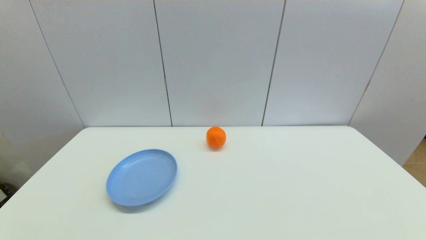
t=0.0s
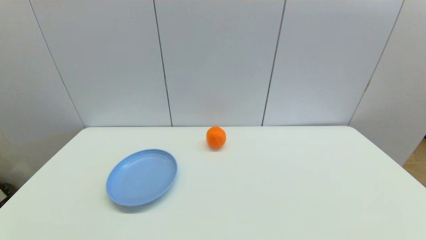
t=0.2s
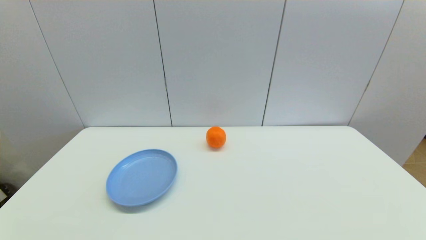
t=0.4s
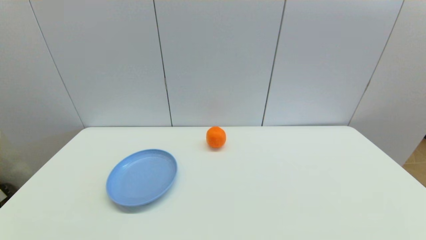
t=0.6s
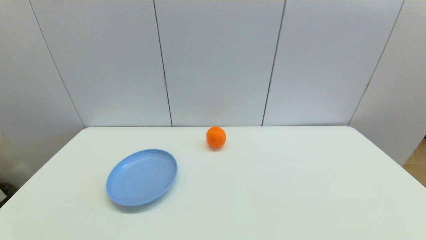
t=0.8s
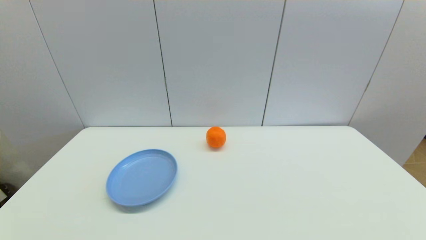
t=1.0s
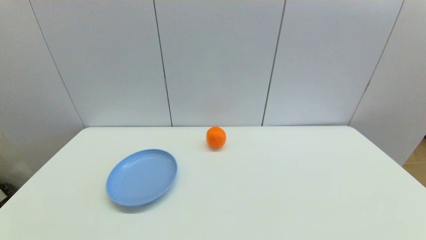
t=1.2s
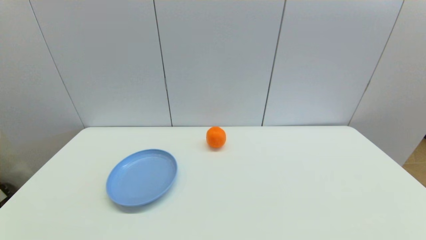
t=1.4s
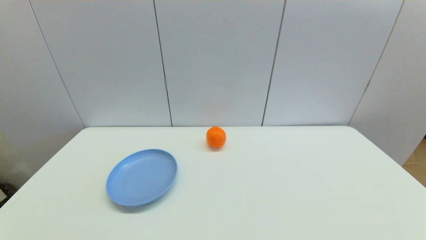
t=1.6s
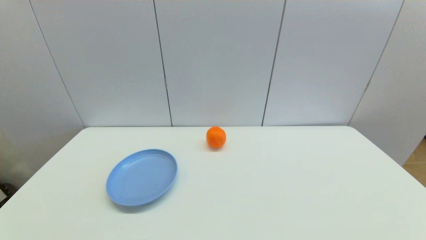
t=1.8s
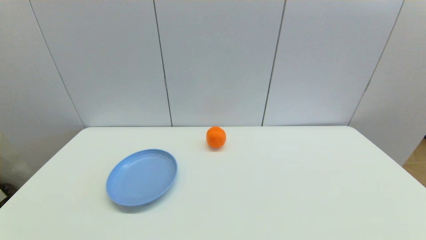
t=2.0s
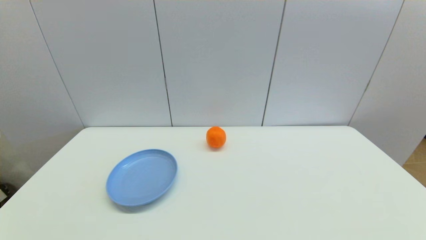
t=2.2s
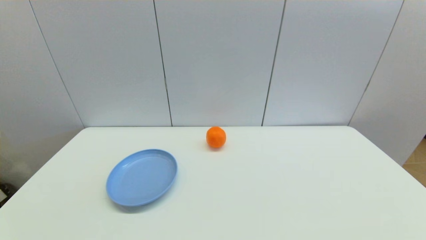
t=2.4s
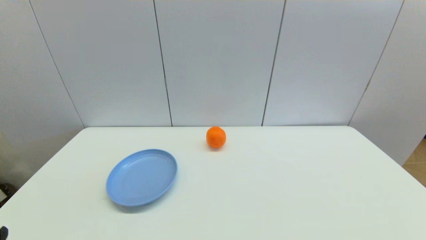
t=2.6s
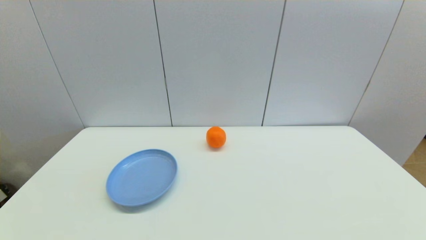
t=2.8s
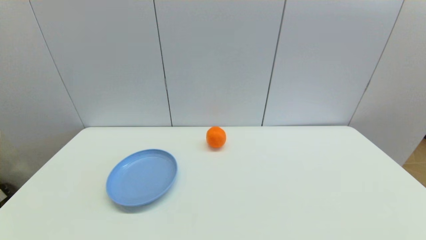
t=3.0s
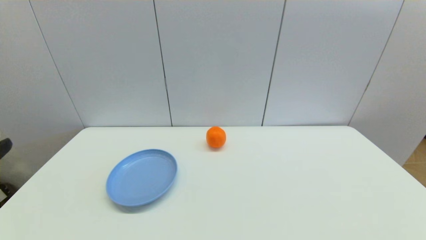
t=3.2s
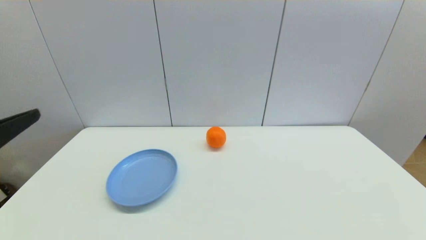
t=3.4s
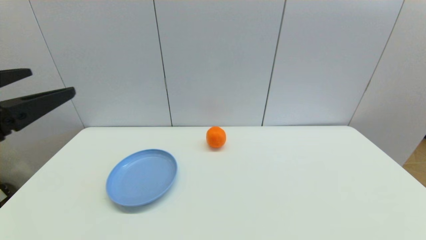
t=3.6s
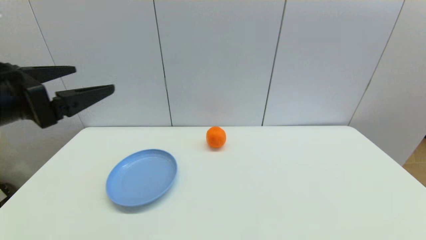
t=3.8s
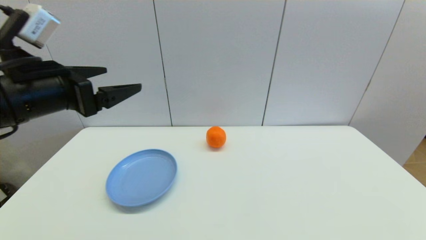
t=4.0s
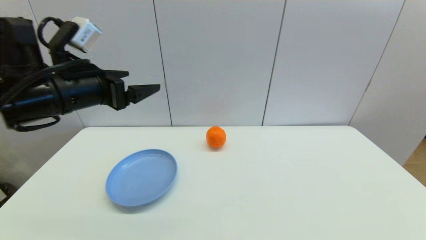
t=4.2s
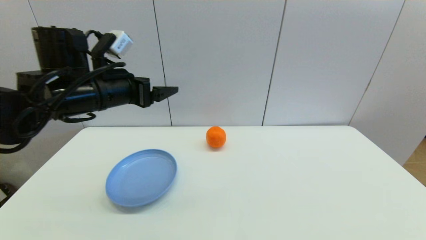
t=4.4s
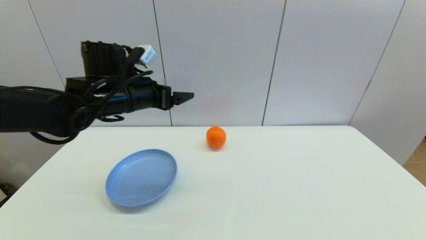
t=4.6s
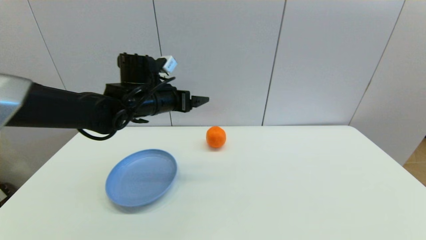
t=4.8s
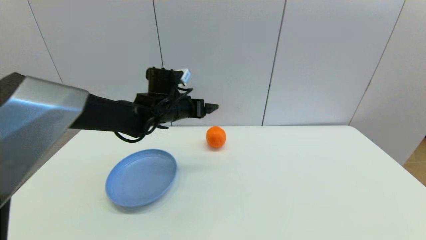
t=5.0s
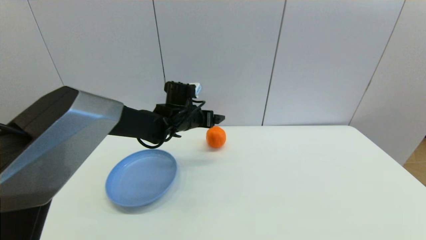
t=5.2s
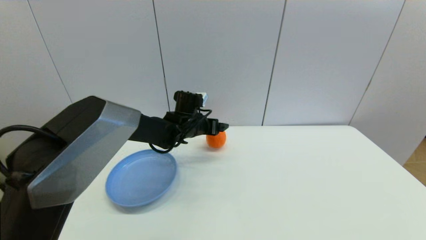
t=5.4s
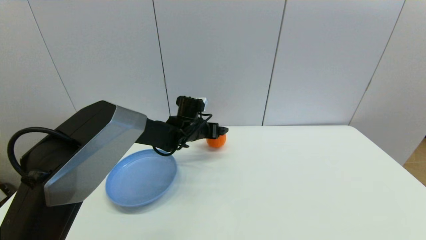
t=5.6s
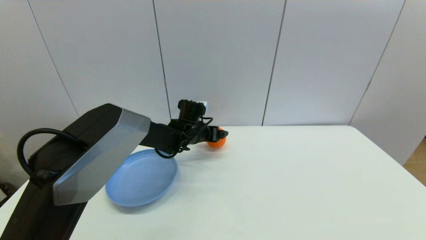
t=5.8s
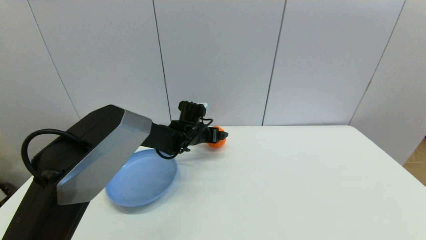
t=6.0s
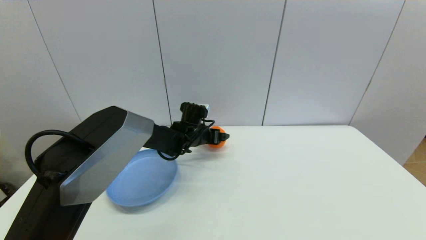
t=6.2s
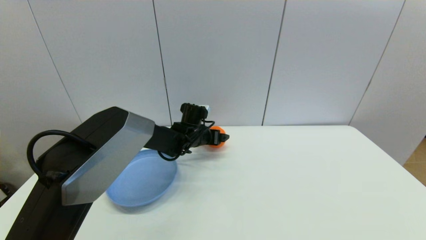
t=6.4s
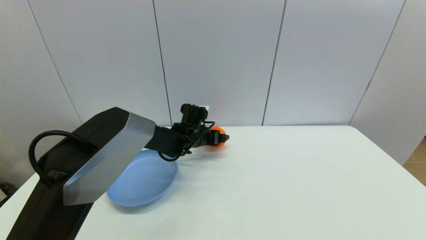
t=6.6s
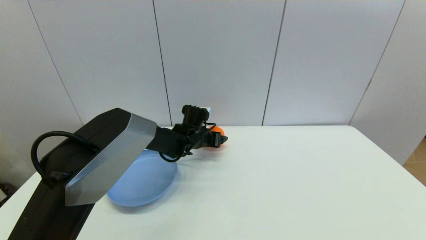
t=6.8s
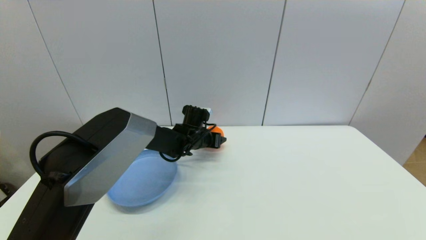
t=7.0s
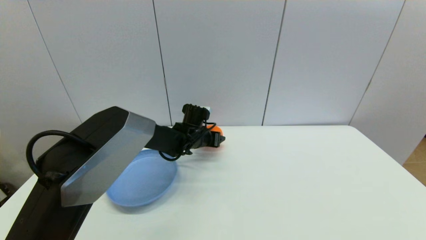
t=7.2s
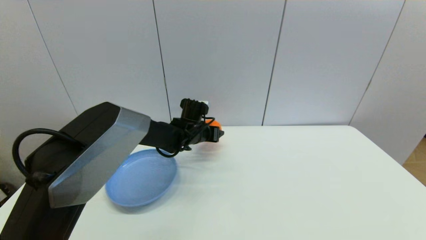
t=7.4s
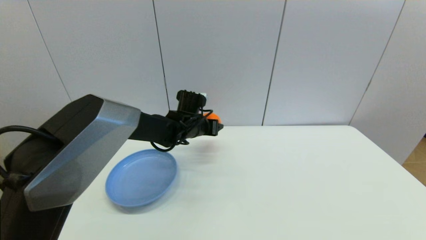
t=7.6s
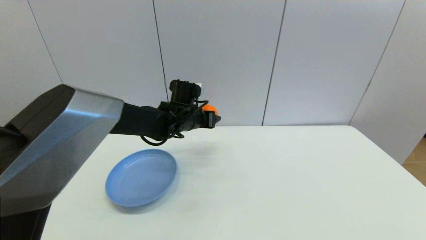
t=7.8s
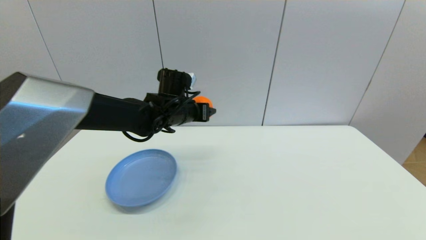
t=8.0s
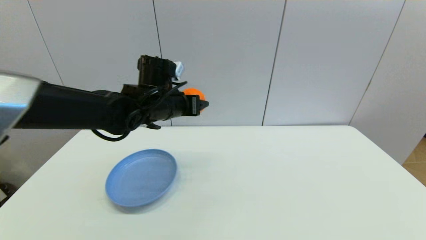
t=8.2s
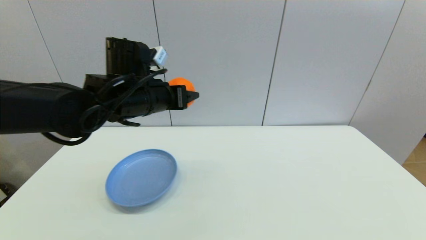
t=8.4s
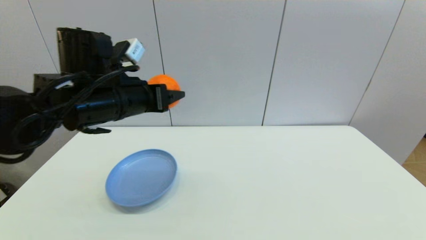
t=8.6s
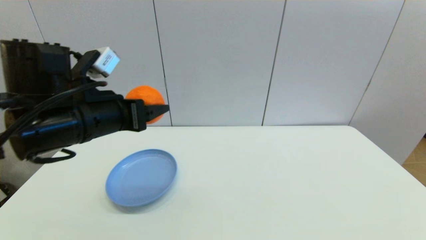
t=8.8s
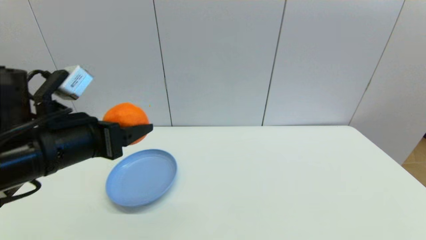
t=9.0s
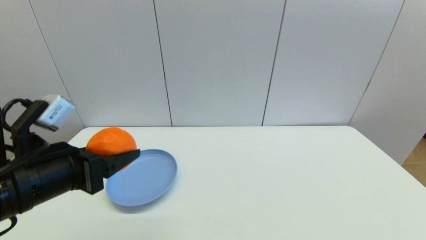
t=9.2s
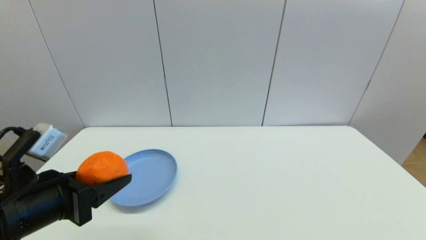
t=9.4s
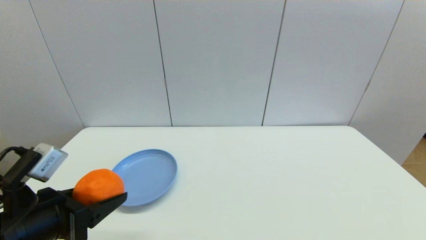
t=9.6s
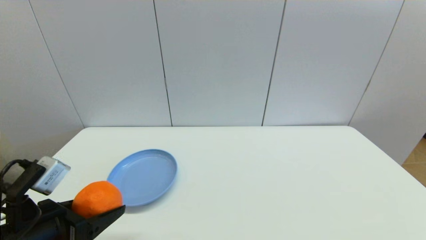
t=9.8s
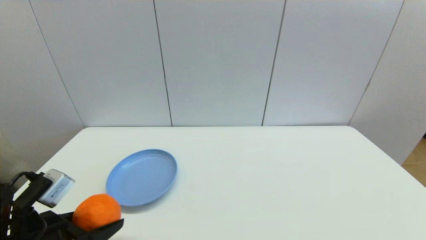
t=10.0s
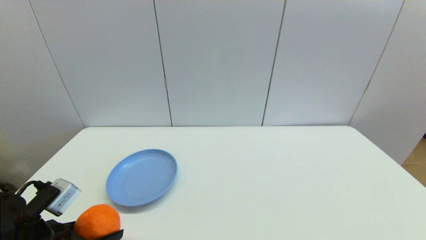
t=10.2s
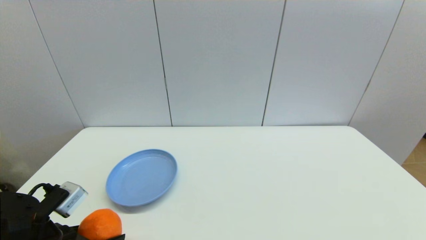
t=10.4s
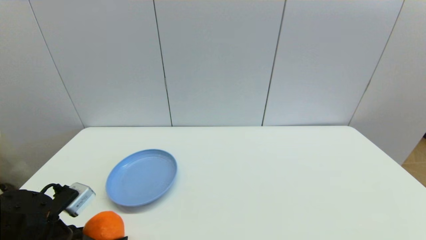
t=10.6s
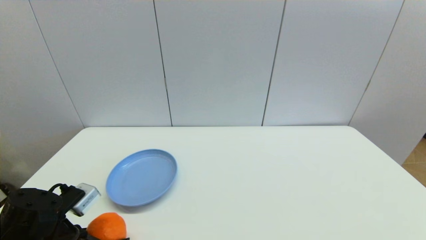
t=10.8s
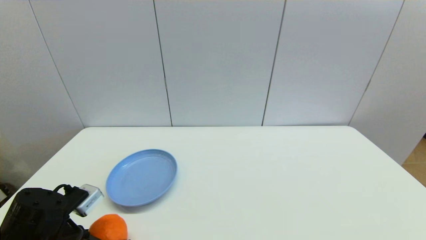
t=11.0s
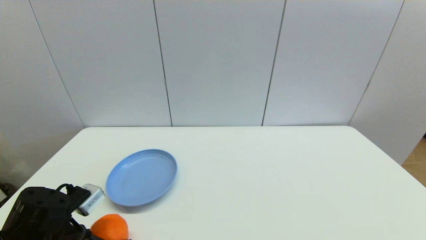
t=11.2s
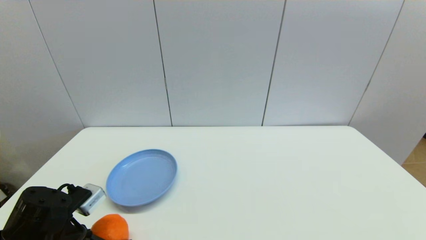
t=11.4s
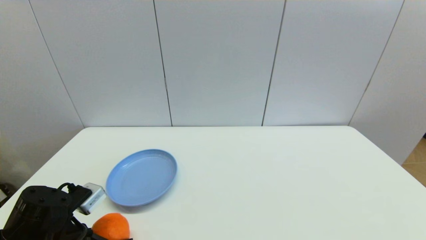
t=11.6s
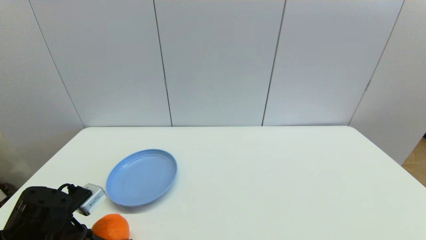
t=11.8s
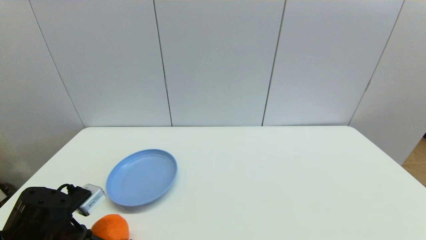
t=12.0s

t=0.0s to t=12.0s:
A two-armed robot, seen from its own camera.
Step, t=3.2s to t=7.0s: Grasp the orange with left gripper.
t=0.0s to t=1.6s: Both grippers stay put.
t=3.0s to t=4.4s: The left gripper heads forward, covering about 30 cm.
t=4.4s to t=6.0s: The left gripper moves downward, to the right and forward, roughly 25 cm.
t=6.0s to t=7.6s: The left gripper closes.
t=7.6s to t=9.0s: The left gripper is displaced backward, to the left and upward by some 30 cm.
t=9.0s to t=10.4s: The left gripper shifts approximately 15 cm downward and backward.
t=10.4s to t=12.0s: The grippers make only small movements.

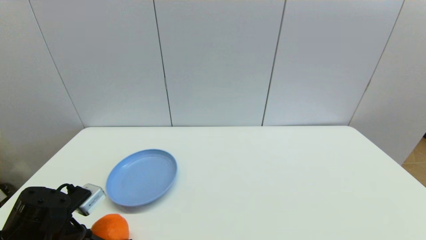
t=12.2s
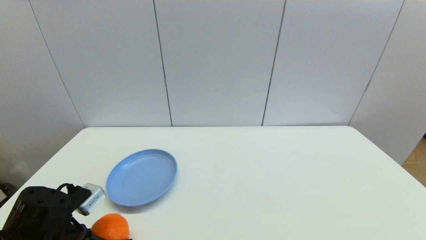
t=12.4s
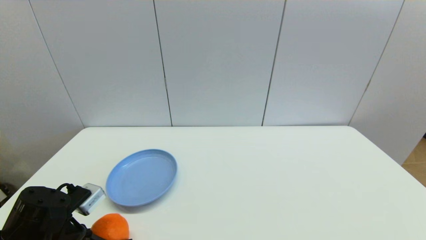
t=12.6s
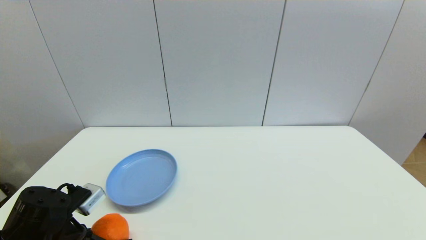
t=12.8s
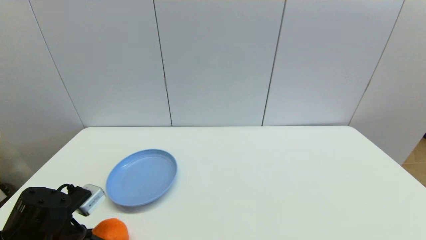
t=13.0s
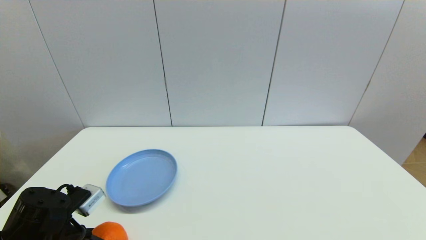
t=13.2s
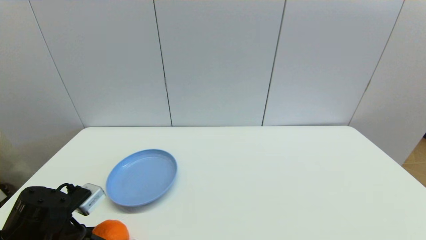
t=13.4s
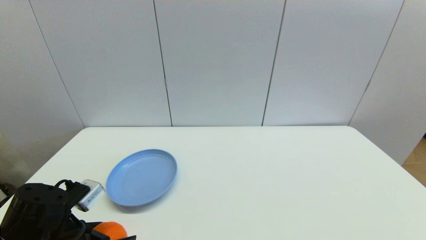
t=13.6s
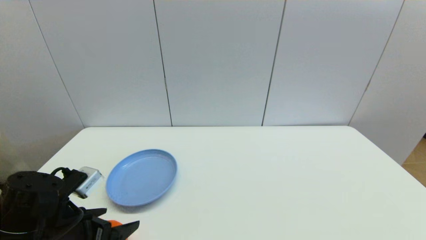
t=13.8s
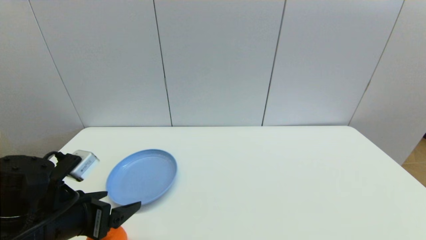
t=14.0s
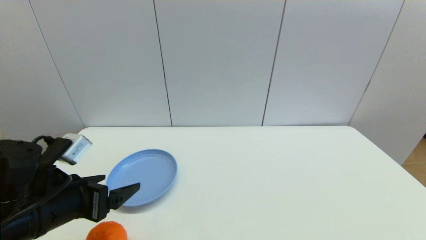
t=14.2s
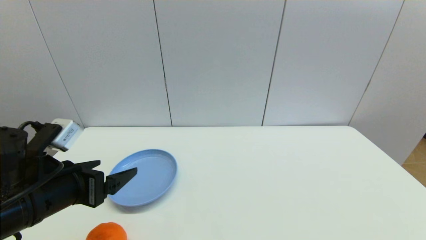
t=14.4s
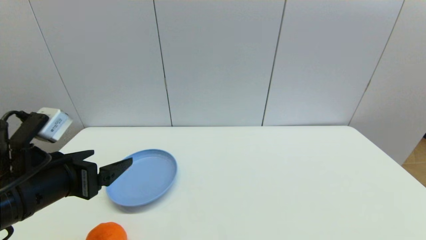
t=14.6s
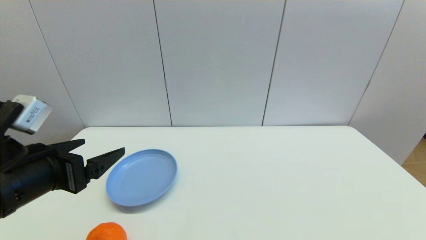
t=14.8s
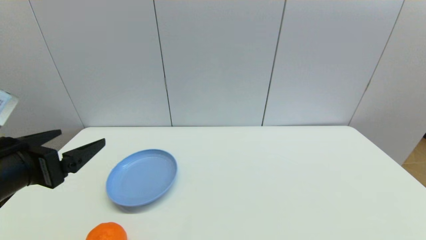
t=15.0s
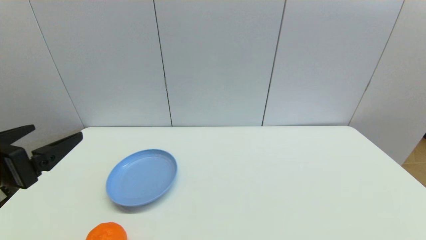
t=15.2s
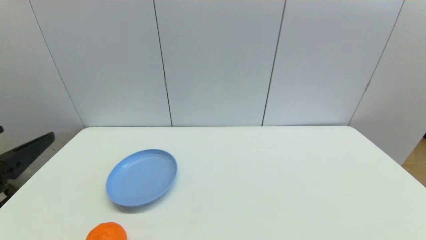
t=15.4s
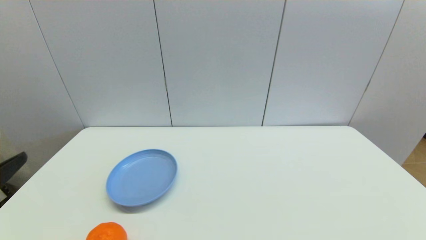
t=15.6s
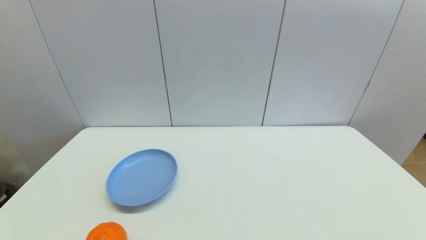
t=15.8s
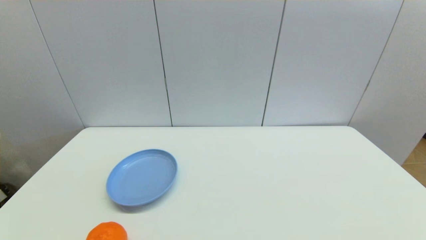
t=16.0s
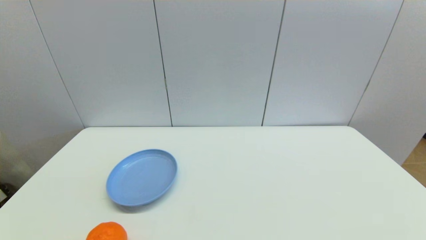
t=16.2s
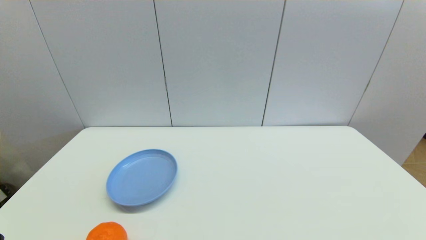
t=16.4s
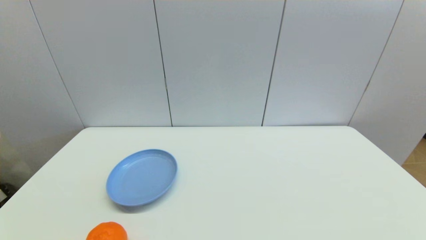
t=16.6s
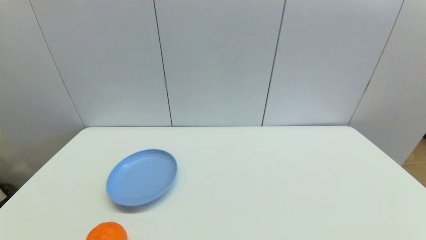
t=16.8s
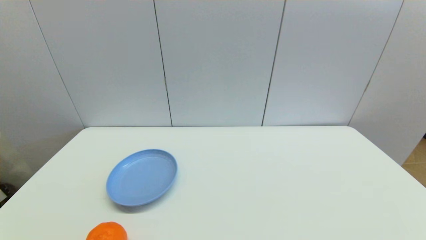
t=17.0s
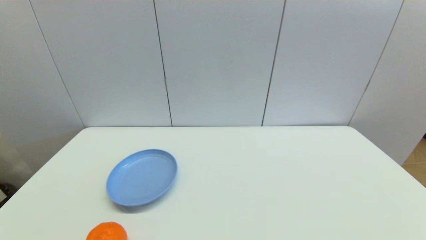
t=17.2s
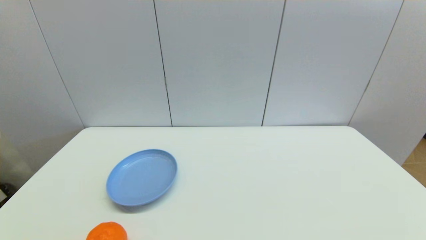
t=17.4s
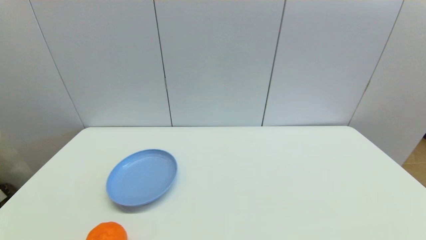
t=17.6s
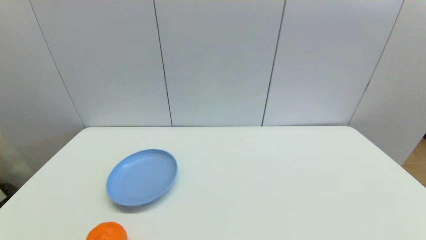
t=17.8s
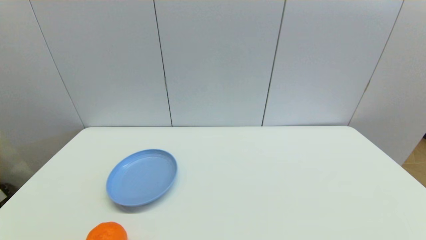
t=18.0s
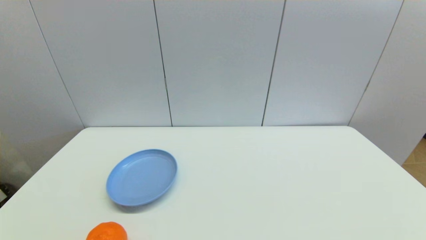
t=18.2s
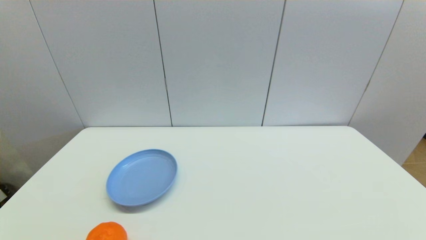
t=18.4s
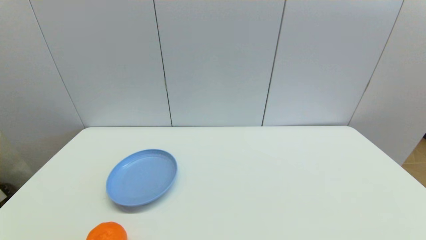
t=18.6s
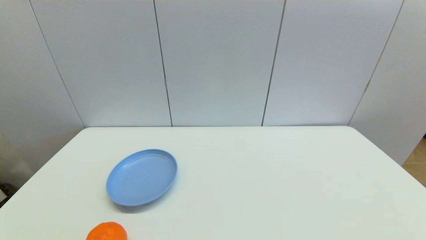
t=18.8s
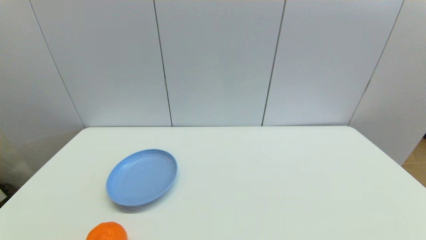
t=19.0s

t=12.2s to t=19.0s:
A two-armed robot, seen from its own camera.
t=12.2s to t=13.6s: The left gripper opens its fingers.
t=13.6s to t=15.0s: The left gripper goes roughly 15 cm upward.
t=15.0s to t=16.2s: The left gripper moves backward, some 15 cm.
t=17.6s to t=19.0s: Both grippers stay about where they are.
